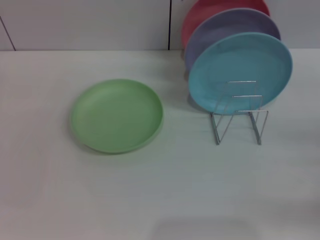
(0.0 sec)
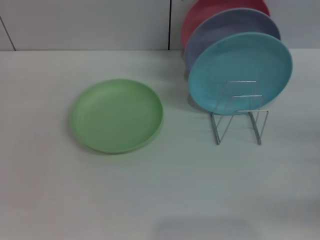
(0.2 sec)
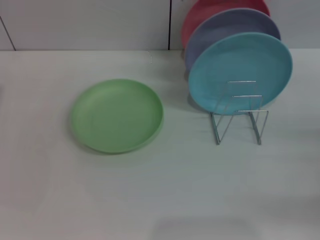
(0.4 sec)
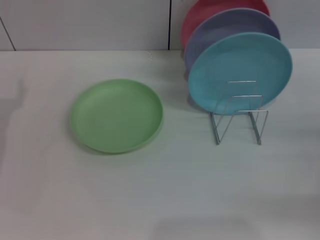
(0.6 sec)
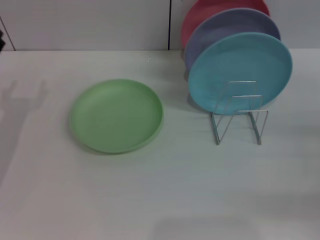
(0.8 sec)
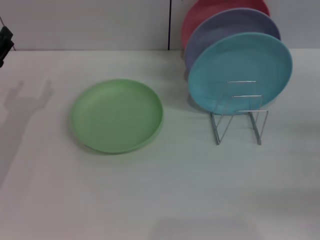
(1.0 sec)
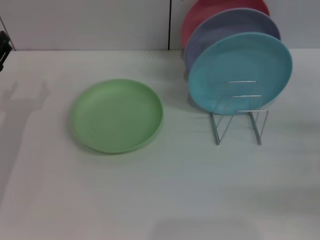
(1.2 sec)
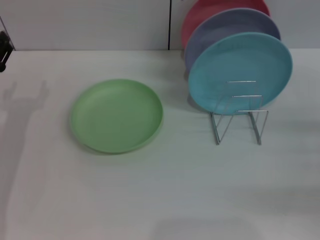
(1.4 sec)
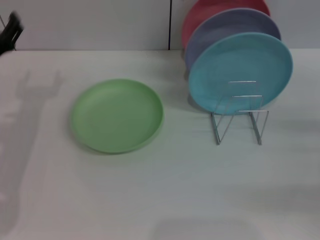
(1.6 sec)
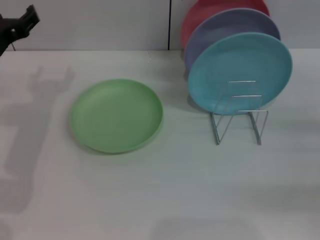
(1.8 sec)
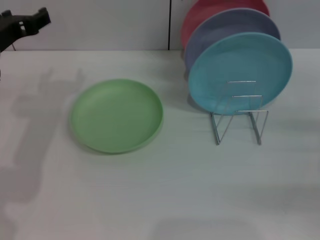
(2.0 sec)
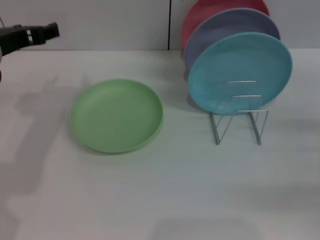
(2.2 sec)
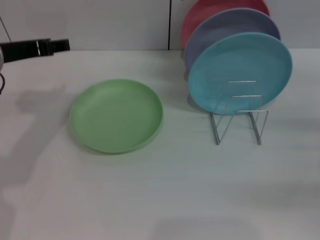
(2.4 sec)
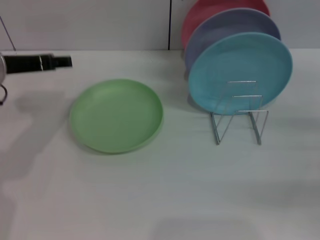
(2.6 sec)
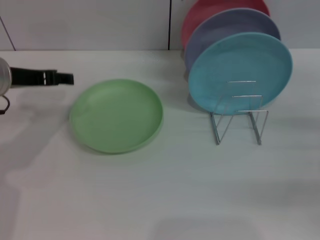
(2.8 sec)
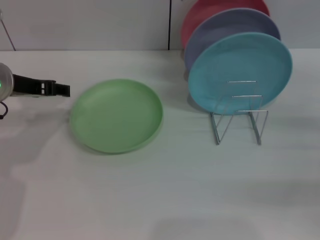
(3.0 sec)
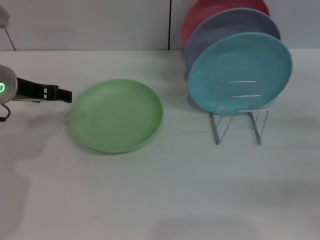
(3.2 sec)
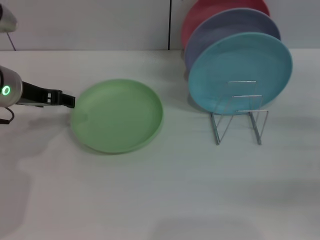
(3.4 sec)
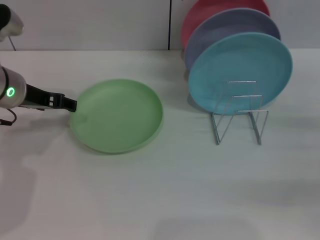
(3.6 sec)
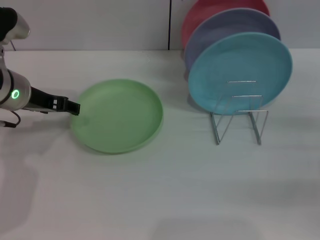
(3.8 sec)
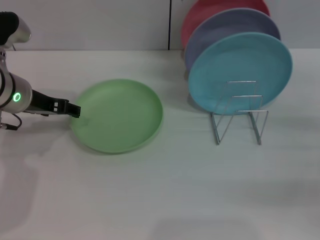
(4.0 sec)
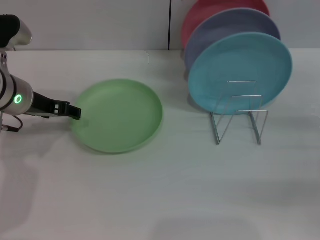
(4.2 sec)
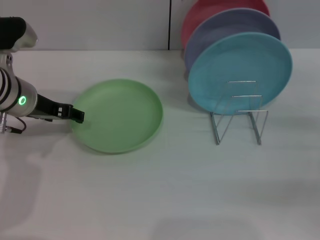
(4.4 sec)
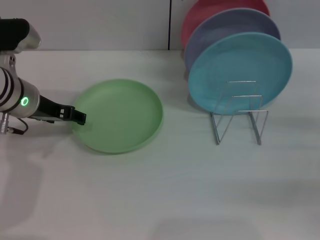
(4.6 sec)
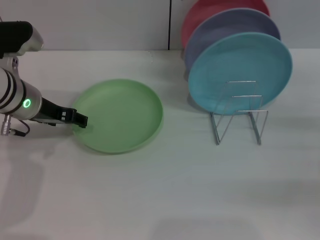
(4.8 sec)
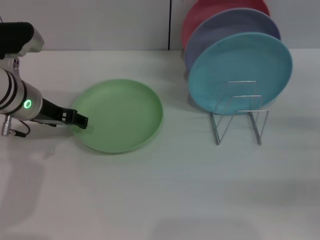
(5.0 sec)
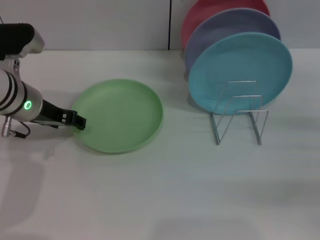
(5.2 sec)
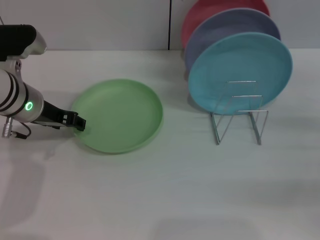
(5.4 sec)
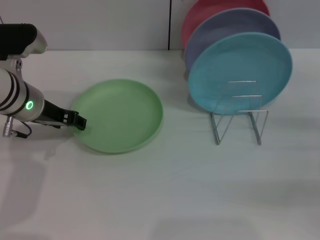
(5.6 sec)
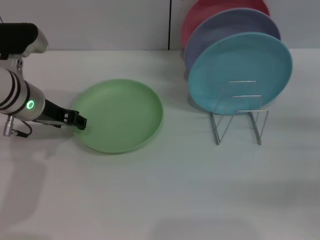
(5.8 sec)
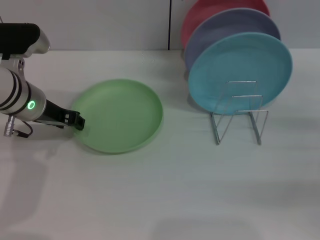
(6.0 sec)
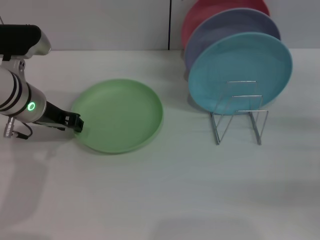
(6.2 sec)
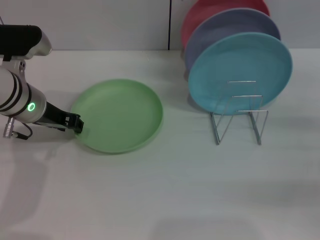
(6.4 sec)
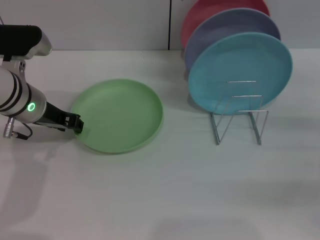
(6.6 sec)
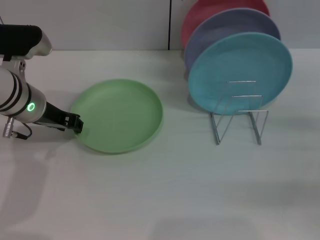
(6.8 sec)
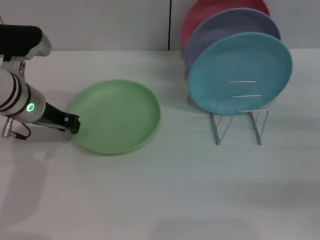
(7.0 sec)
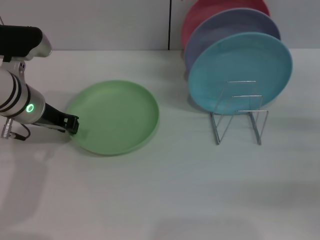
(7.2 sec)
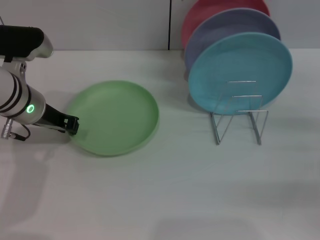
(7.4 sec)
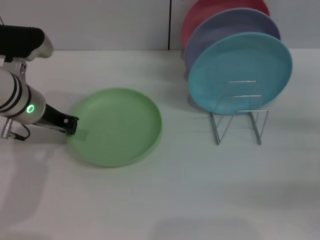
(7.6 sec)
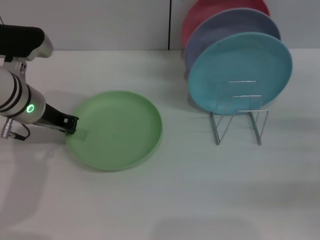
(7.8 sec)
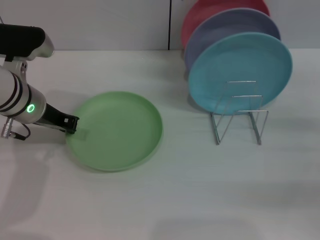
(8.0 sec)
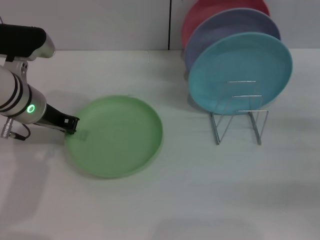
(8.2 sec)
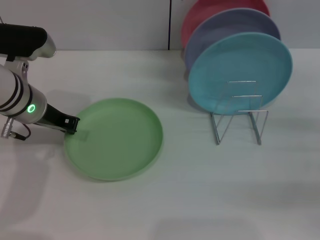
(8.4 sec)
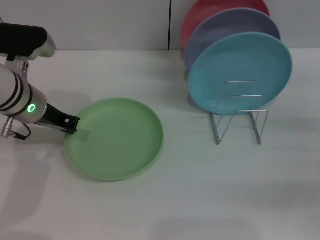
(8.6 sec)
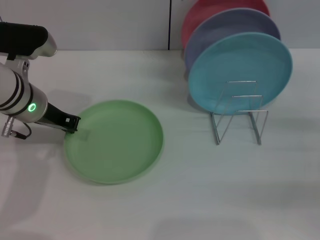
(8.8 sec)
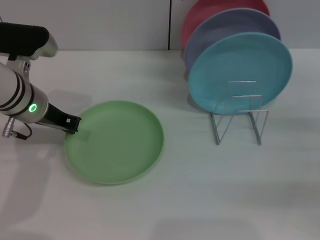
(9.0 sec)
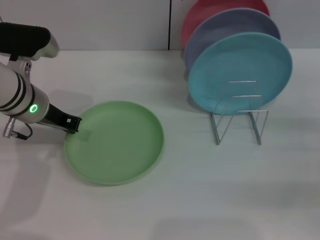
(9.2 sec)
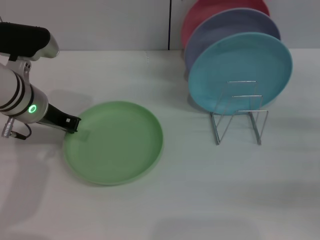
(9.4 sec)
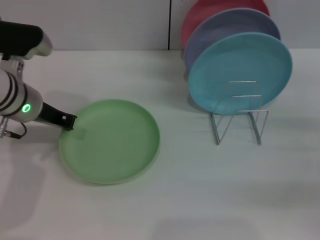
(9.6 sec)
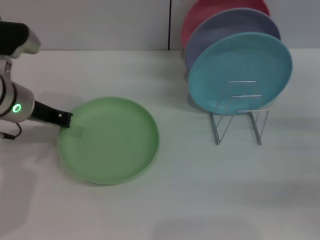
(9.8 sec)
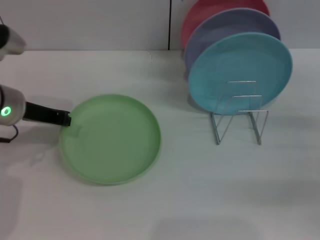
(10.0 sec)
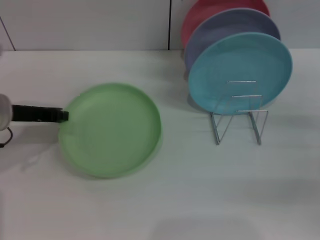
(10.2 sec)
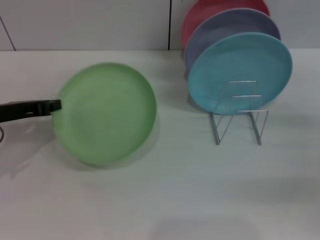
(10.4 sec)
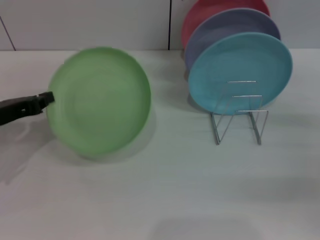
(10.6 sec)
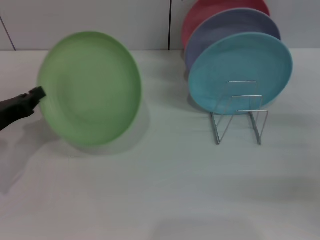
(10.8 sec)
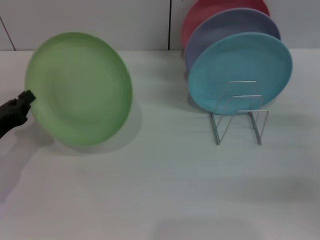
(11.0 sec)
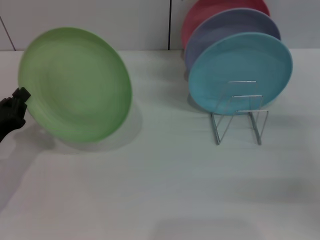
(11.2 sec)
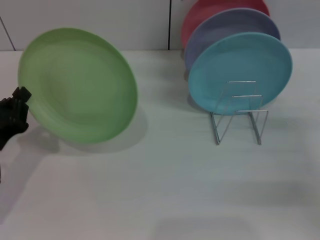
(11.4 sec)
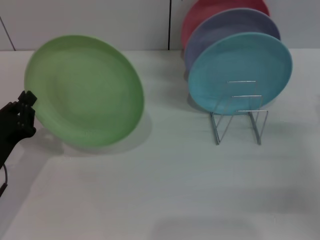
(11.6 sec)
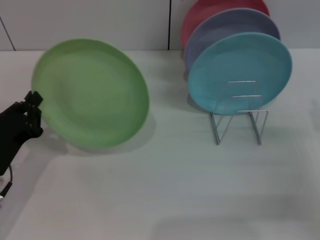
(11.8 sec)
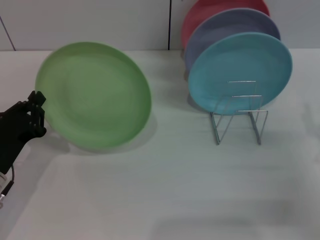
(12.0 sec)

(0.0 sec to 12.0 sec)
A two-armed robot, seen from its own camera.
Task of the whole recording: Grip the plate with one hand, pass it to the other, then set it on the shelf.
Step, 0.0 sec - 10.0 sec: Pick up the plate with the left gripper.
0.0 sec - 1.6 sec: The left gripper travels to the right by approximately 10 cm.
1.6 sec - 3.0 sec: The left gripper is displaced upward by approximately 5 cm.
3.0 sec - 4.4 sec: There are only small adjustments of the grippers.
4.4 sec - 6.0 sec: Neither gripper changes place.
6.0 sec - 7.6 sec: The left gripper closes up.
7.6 sec - 9.0 sec: Both grippers stay put.
9.0 sec - 10.4 sec: The left gripper heads to the left, covering about 10 cm.
10.4 sec - 12.0 sec: The right gripper moves to the left, some 5 cm. The left gripper heads downward and backward, covering about 15 cm.

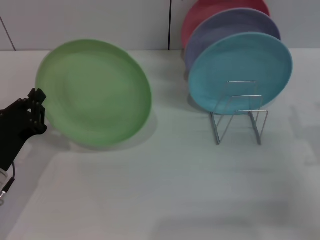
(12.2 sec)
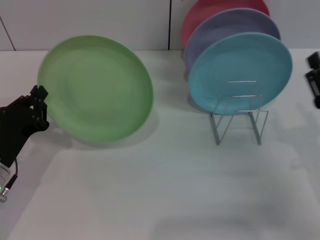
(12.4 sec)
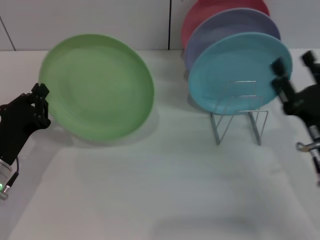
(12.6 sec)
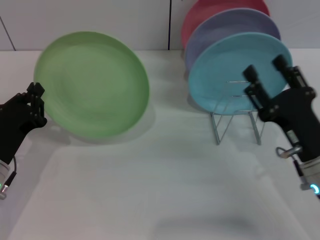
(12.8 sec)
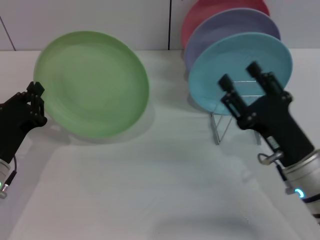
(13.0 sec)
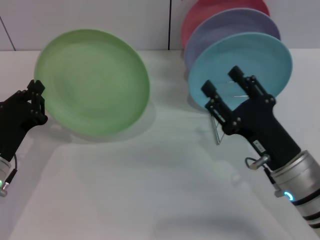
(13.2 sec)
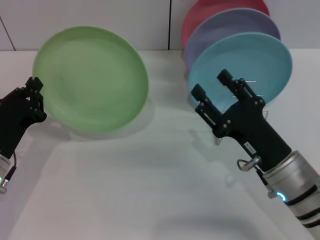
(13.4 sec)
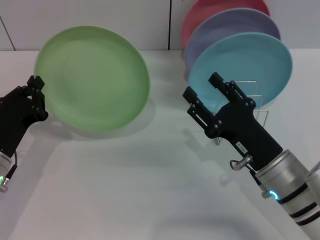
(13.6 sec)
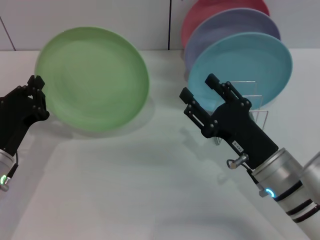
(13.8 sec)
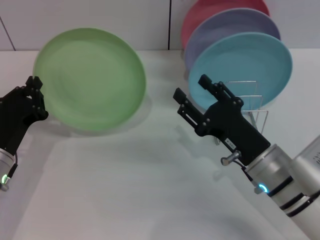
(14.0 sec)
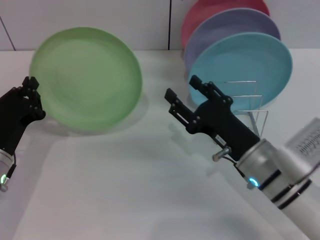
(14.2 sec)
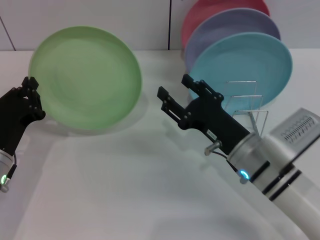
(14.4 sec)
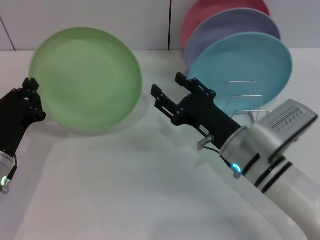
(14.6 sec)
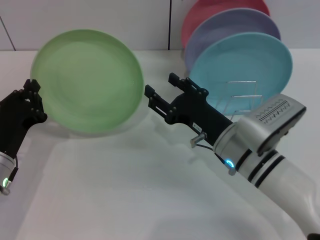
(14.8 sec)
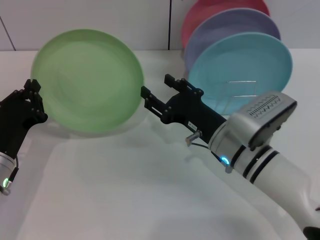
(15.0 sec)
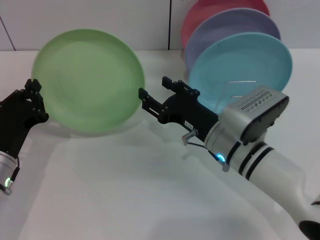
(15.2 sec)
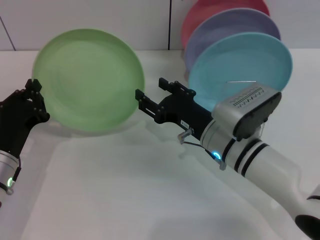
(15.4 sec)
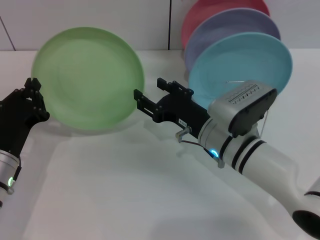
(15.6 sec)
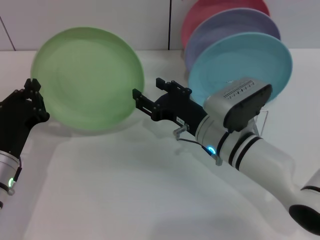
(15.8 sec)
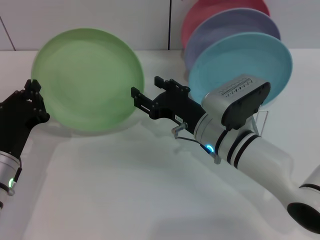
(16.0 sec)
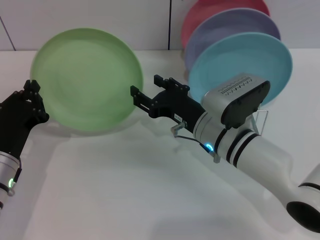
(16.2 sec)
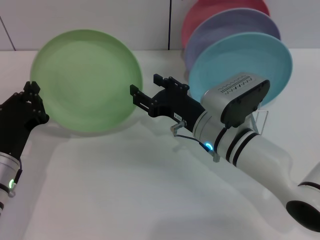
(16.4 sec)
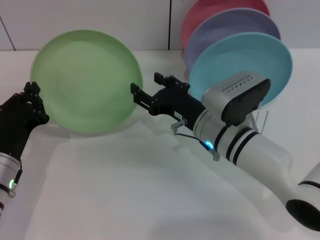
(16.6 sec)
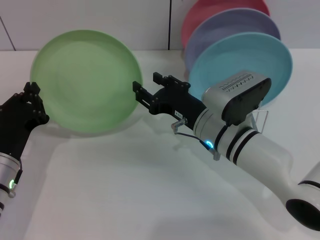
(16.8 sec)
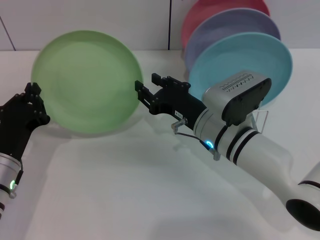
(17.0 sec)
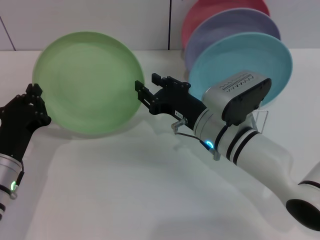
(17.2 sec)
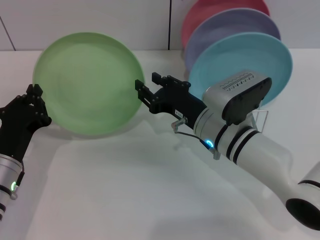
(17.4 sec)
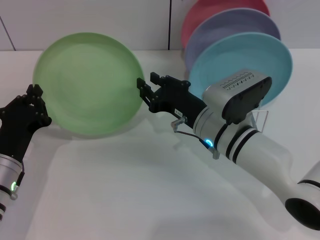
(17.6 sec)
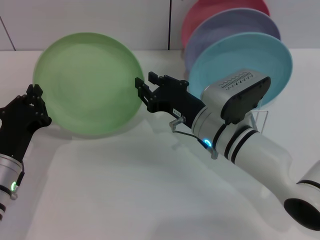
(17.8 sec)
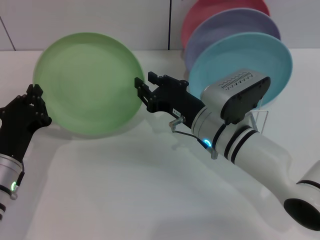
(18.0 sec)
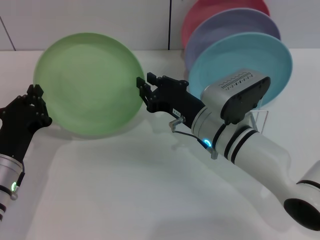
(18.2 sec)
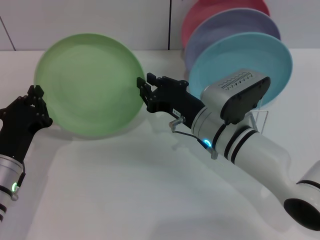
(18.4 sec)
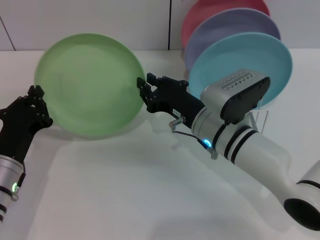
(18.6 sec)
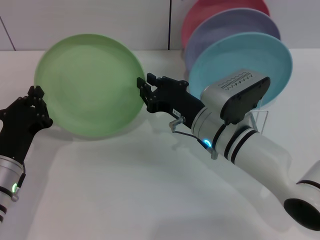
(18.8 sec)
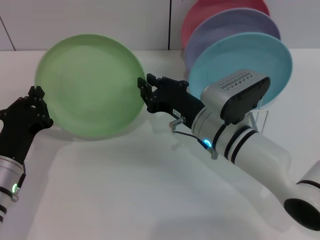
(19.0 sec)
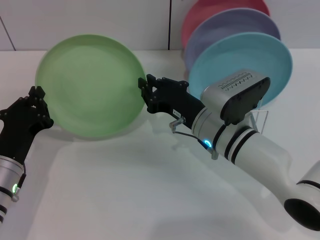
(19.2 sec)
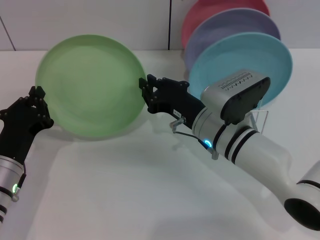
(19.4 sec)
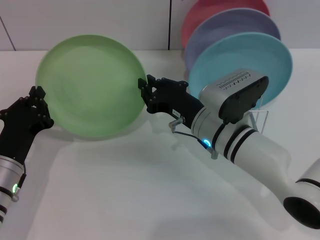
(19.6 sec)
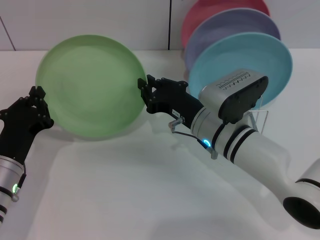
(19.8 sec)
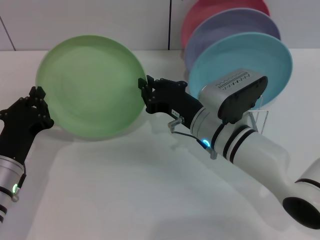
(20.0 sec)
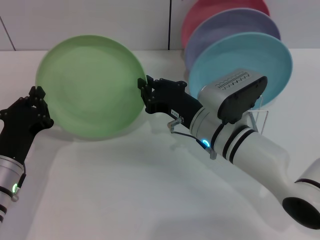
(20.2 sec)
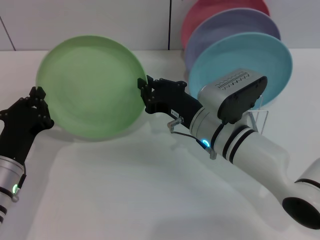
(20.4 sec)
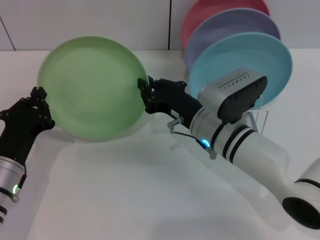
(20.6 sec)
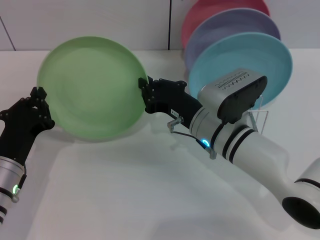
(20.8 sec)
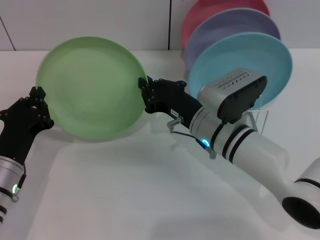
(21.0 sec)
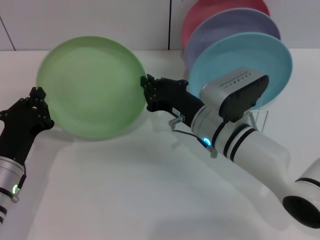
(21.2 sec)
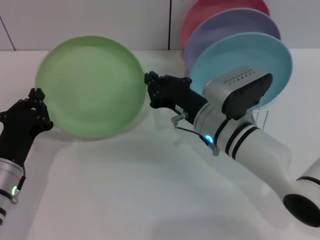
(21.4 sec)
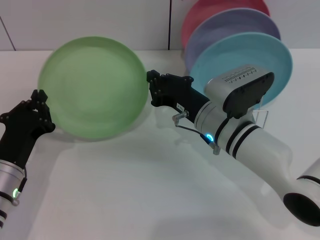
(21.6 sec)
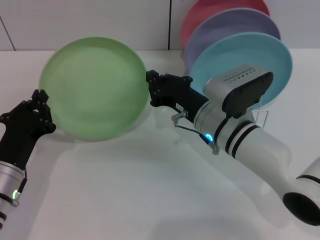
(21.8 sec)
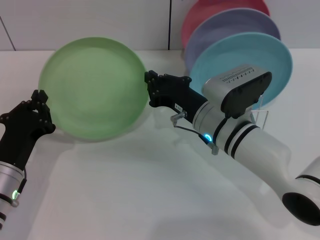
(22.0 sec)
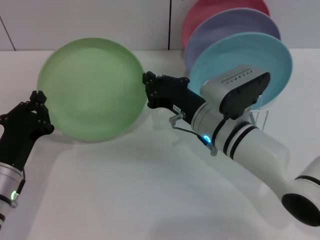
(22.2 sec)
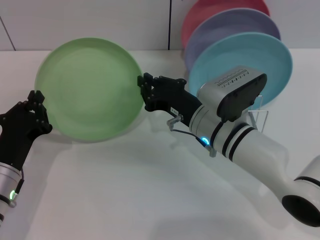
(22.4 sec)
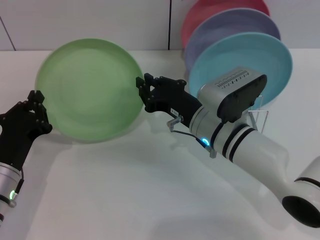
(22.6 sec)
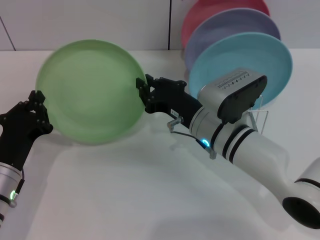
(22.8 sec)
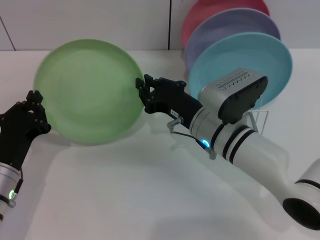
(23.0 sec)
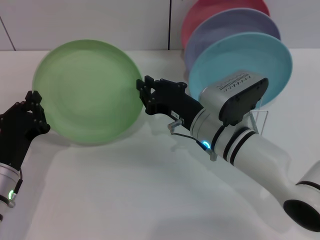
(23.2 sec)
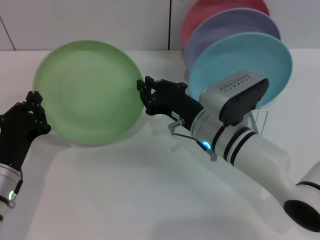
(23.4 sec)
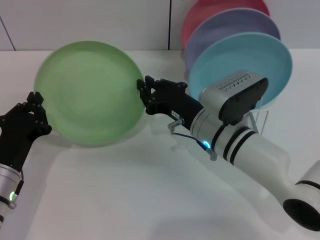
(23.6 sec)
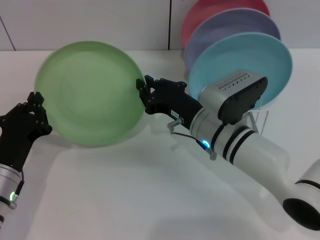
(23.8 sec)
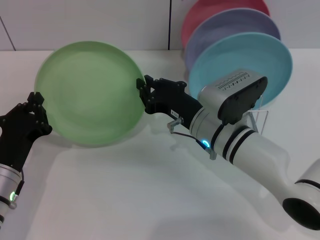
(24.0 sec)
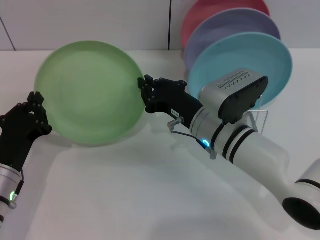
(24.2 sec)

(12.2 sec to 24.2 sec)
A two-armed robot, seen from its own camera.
Task of the whole recording: Grip the plate with one hand, pass it to the other, then set it on the shelf.
12.2 sec - 13.8 sec: The right gripper heads to the left, covering some 10 cm.
13.8 sec - 15.2 sec: The right gripper travels forward and to the left by roughly 10 cm.
15.2 sec - 16.6 sec: The grippers make only small movements.
16.6 sec - 18.2 sec: The right gripper closes.
18.2 sec - 24.2 sec: Both grippers stay put.
